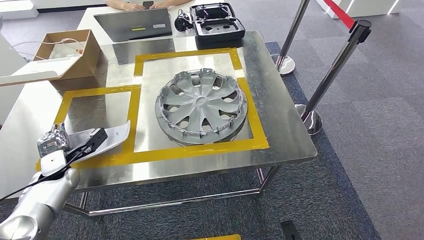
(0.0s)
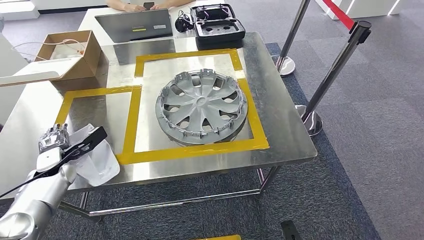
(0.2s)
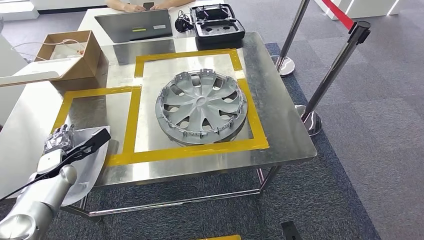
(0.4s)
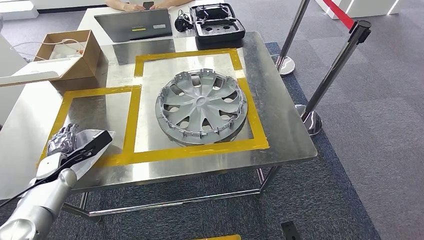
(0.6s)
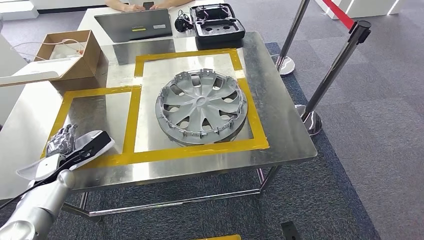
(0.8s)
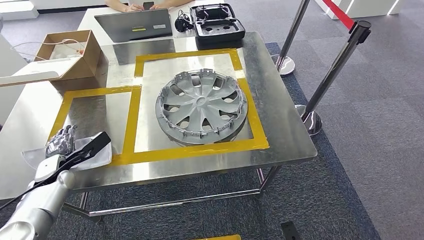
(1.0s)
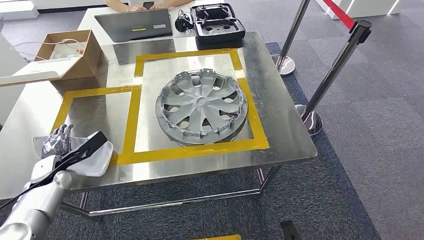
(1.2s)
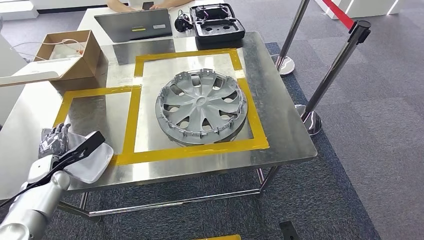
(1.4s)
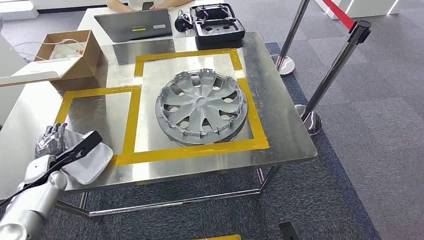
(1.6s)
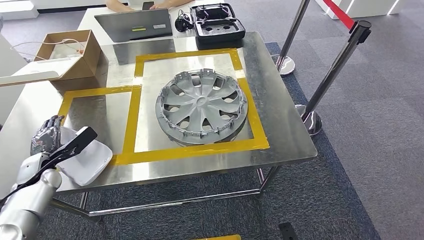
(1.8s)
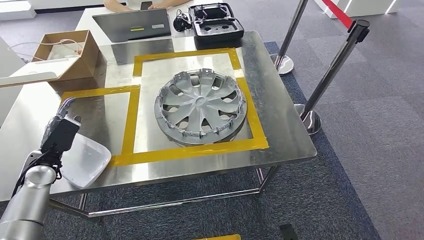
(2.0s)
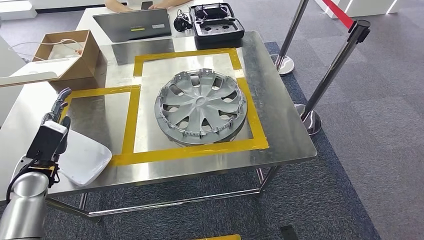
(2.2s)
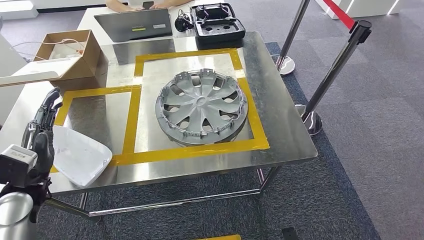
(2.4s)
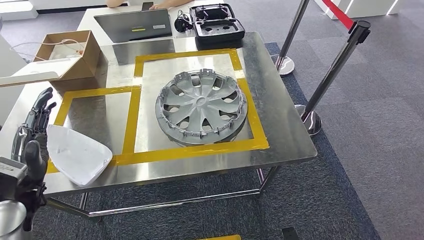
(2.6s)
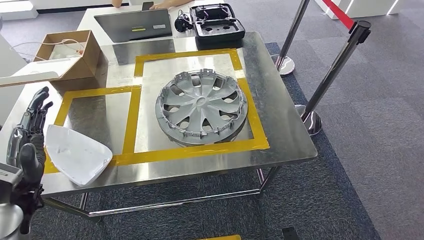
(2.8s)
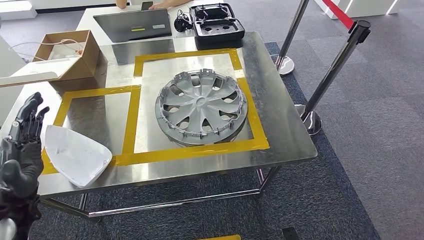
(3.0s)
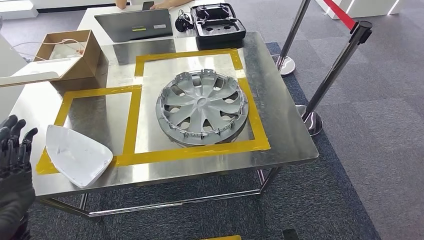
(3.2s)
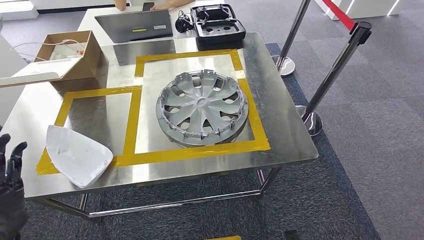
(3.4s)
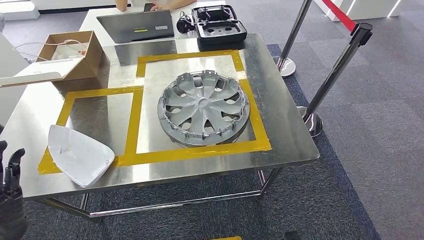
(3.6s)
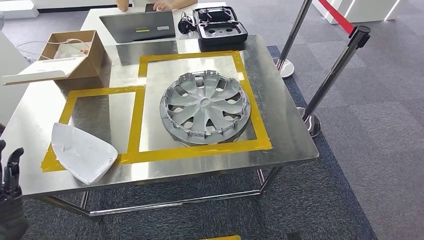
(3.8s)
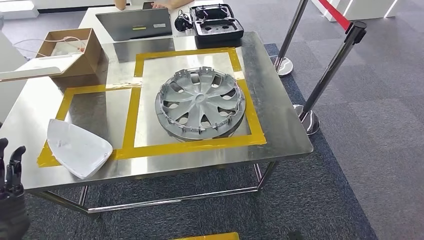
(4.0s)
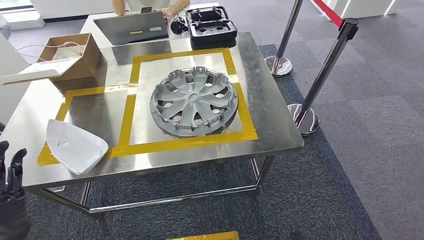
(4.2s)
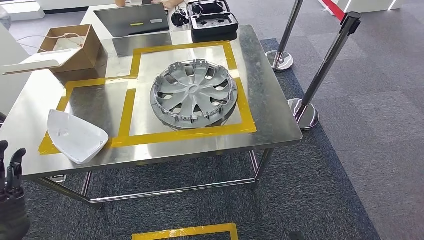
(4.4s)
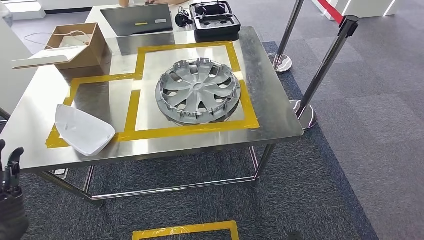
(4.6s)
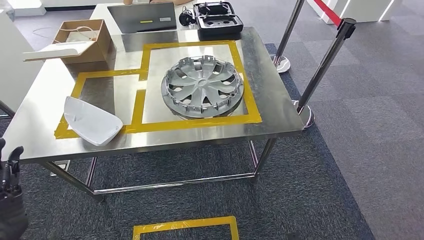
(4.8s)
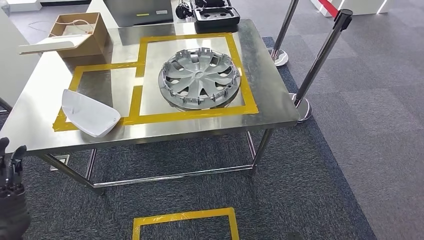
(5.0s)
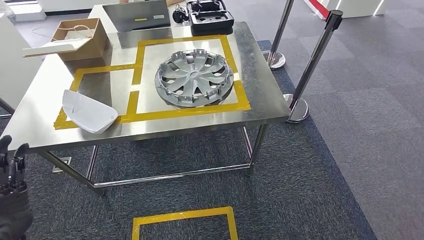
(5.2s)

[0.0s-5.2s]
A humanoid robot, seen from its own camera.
Step, 0.0s to 5.2s: Insert the large material into the corresponding slot on the workbench.
1.8s to 3.4s: The left hand shifts about 25 cm backward, upward and to the right.
